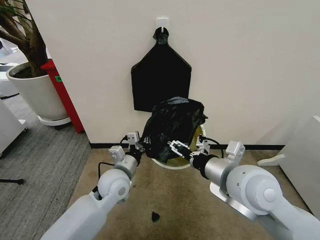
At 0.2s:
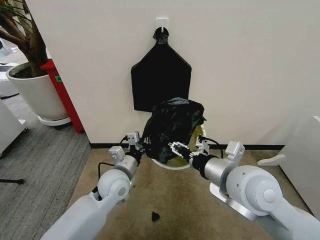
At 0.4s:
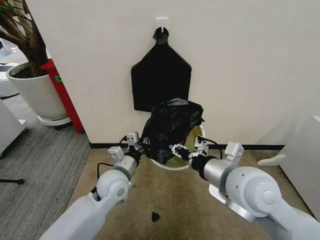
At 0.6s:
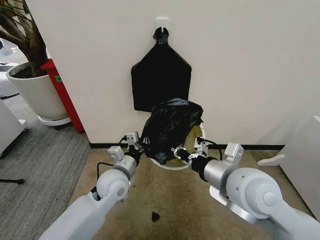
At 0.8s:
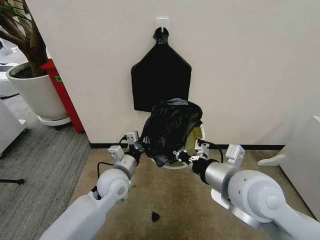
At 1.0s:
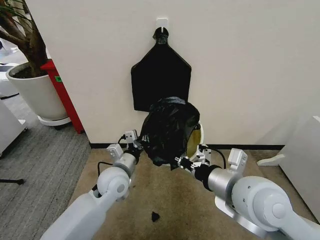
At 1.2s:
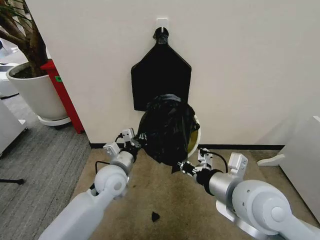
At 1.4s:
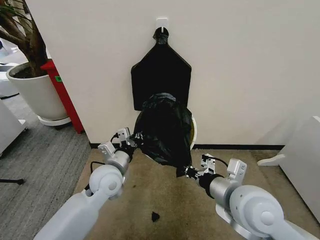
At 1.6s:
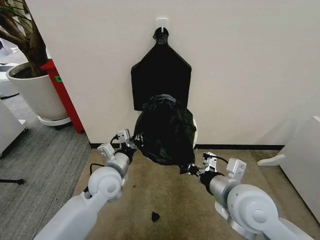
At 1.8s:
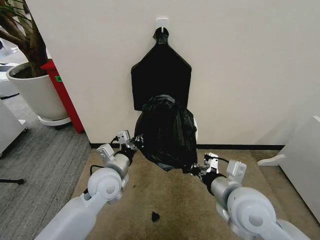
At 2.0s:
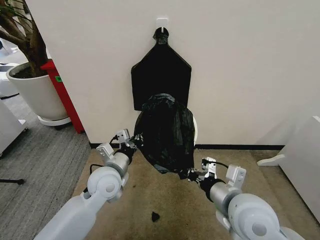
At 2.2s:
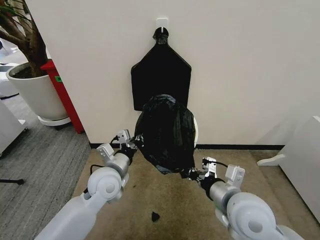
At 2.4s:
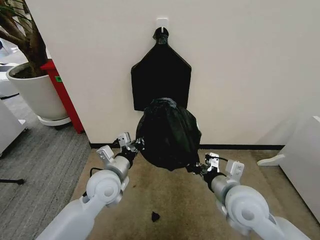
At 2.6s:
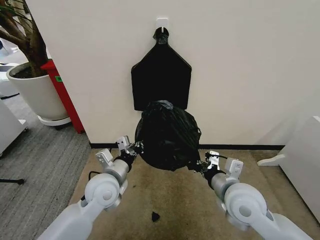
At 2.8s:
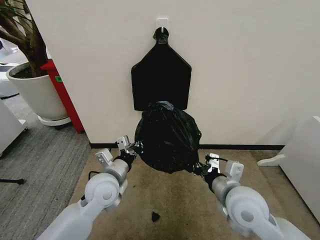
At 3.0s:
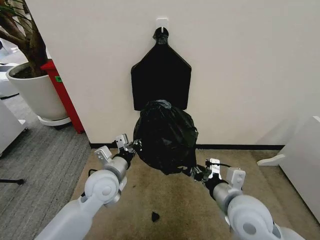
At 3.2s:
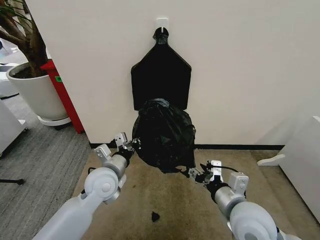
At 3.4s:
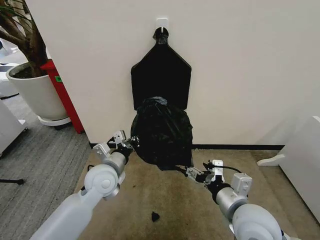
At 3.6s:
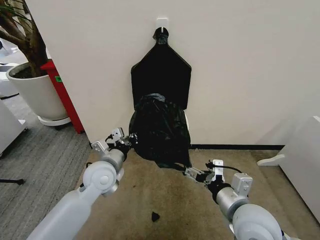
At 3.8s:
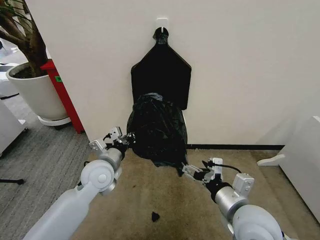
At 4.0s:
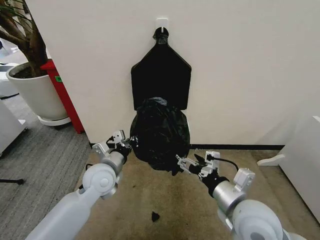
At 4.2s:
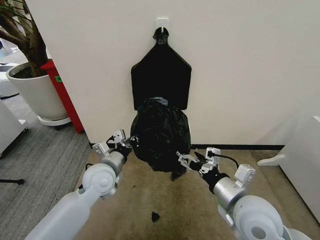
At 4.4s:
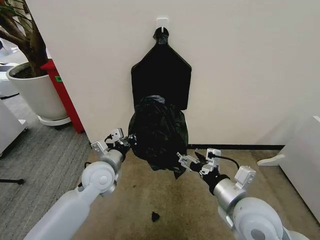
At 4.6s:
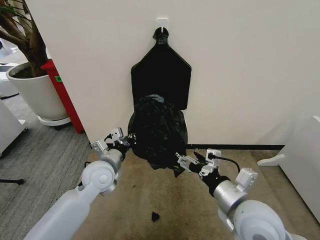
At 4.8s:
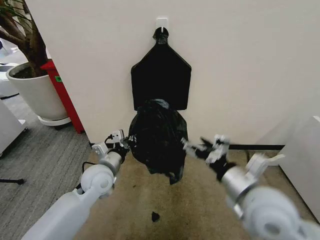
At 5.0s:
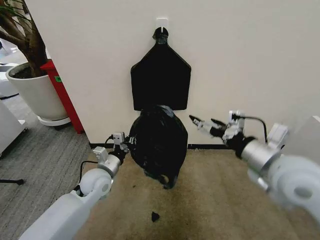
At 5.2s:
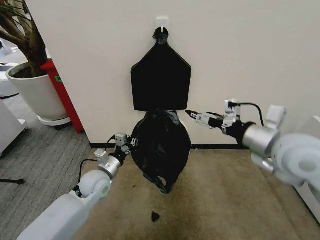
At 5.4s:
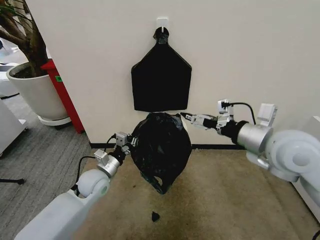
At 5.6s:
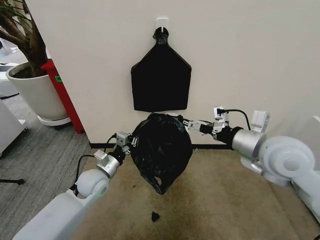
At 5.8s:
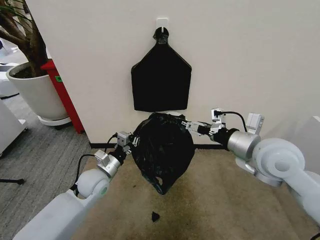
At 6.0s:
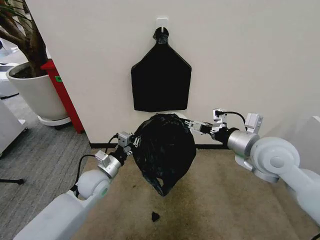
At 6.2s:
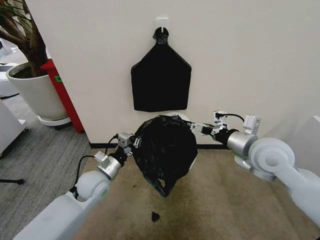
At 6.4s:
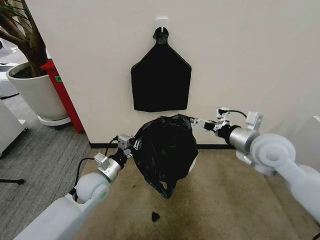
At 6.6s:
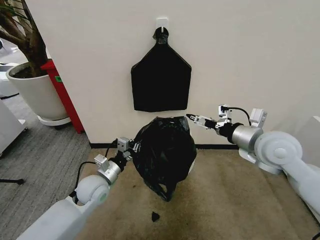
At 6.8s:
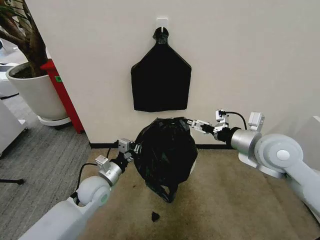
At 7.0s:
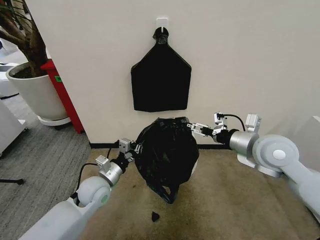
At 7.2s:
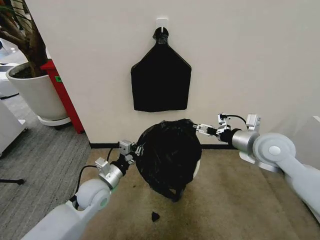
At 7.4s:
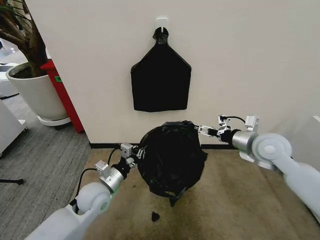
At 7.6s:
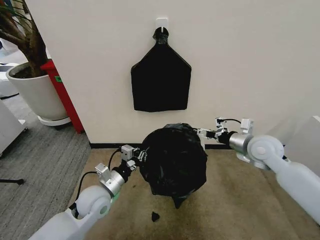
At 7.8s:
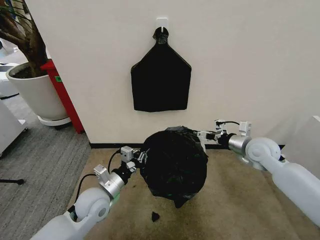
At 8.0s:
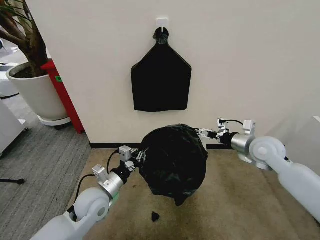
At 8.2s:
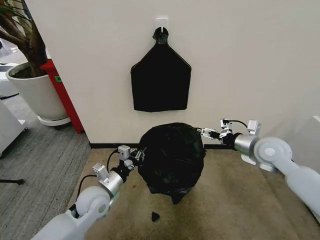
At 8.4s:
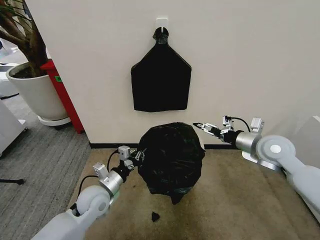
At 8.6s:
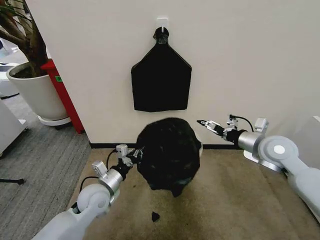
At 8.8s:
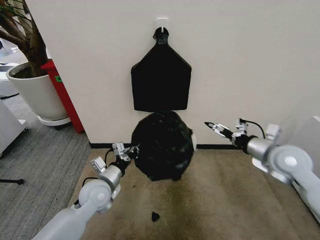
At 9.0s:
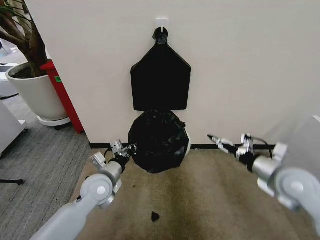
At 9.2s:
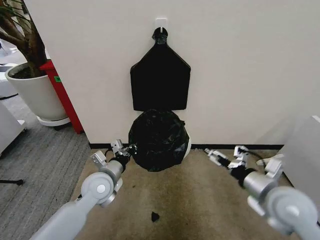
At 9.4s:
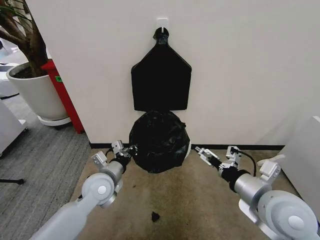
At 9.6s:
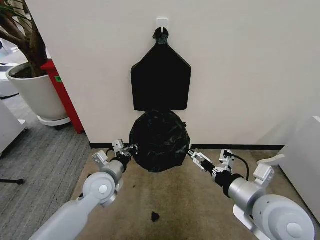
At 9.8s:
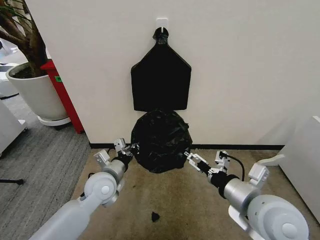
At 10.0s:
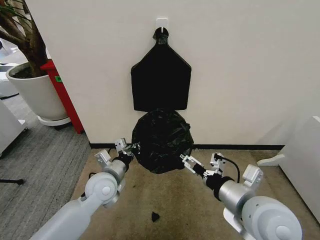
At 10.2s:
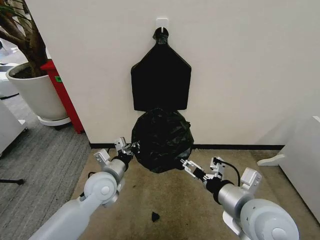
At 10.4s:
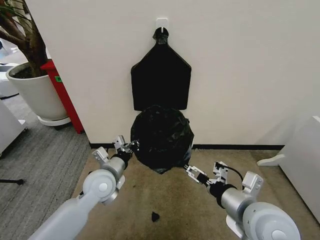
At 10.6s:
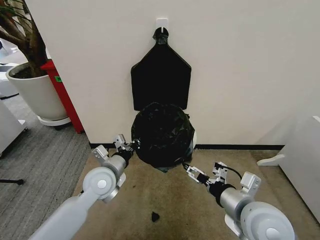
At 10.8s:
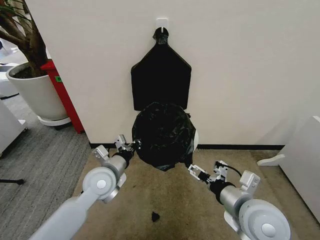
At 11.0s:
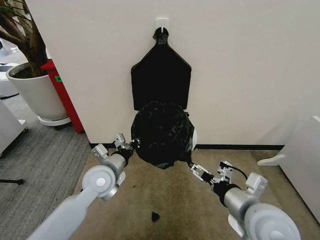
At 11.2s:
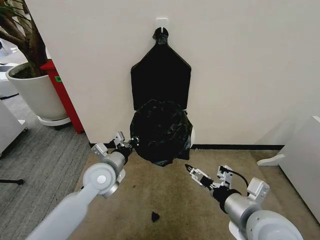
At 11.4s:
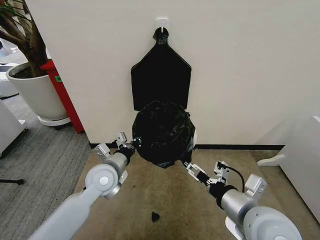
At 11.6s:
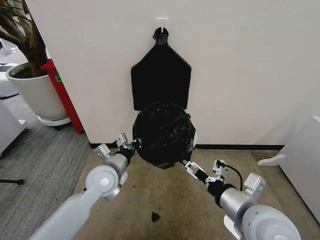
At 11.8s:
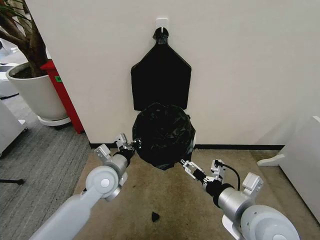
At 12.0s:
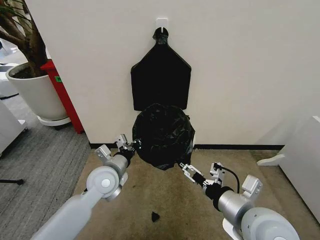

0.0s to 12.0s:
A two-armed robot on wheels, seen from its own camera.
Task of the whole recording: Place the garbage bag over the trash bin.
0.0s to 1.6s: The right gripper goes approximately 5 cm downward, and closes.
1.6s to 3.0s: The right gripper changes place by approximately 5 cm, and opens up.
3.0s to 4.4s: The right gripper opens up.
4.4s to 6.0s: The left gripper moves downward, roughly 5 cm. The right gripper is displaced forward, upward and to the right by some 15 cm.
6.0s to 7.6s: The left gripper moves backward, roughly 5 cm, while the right gripper travels downward, forward and to the right by about 15 cm.
7.6s to 9.0s: The right gripper is displaced backward by about 10 cm.
9.0s to 10.4s: The right gripper moves to the left and backward, roughly 15 cm.
10.4s to 12.0s: The grippers make only small movements.

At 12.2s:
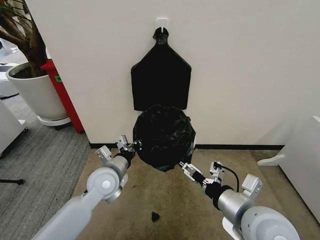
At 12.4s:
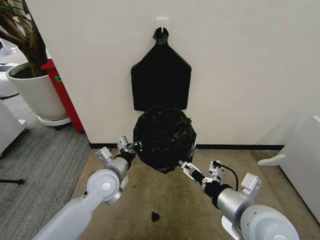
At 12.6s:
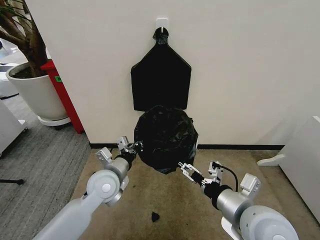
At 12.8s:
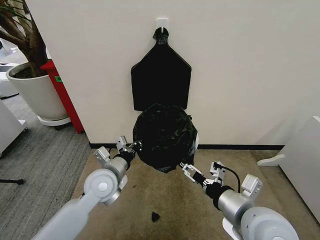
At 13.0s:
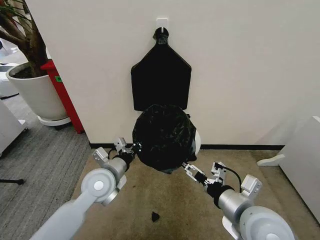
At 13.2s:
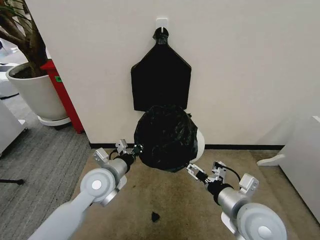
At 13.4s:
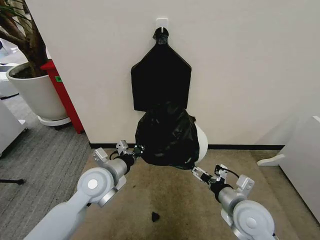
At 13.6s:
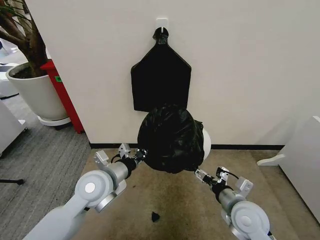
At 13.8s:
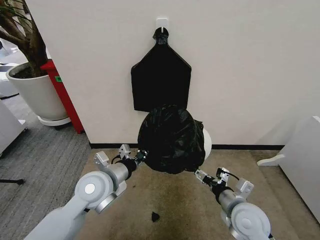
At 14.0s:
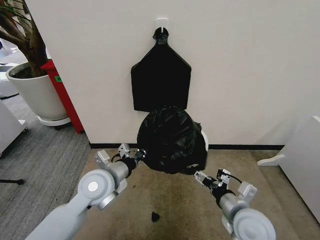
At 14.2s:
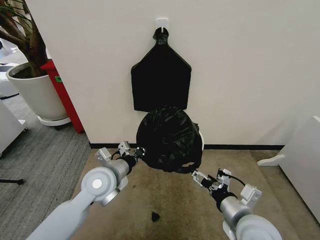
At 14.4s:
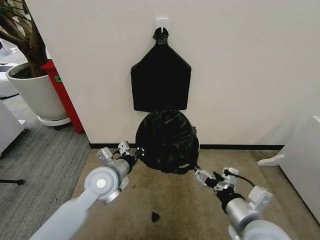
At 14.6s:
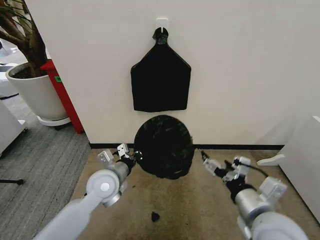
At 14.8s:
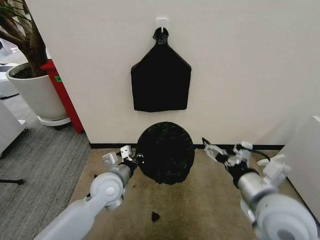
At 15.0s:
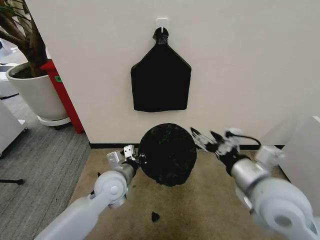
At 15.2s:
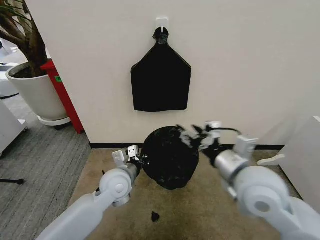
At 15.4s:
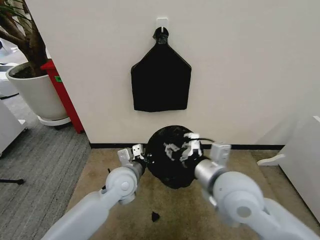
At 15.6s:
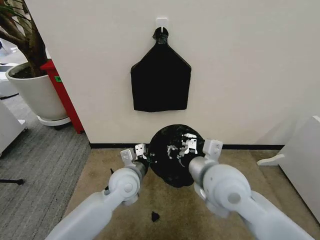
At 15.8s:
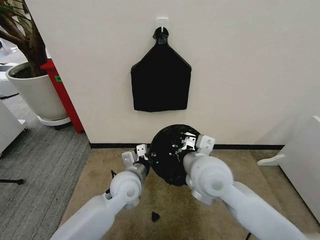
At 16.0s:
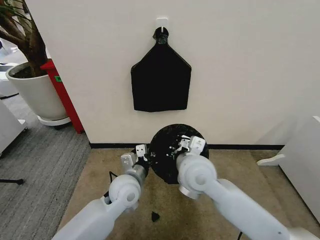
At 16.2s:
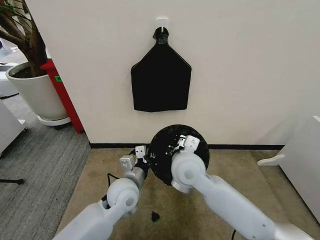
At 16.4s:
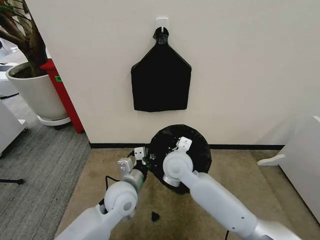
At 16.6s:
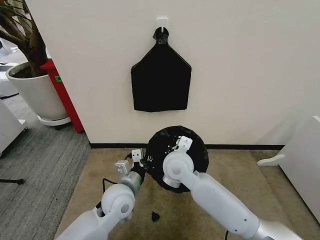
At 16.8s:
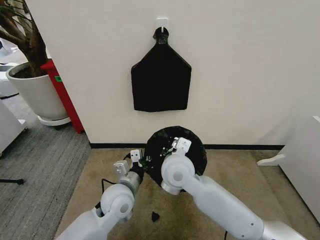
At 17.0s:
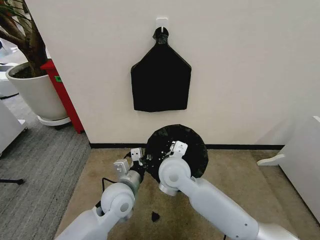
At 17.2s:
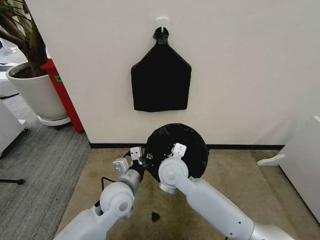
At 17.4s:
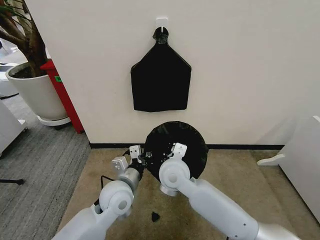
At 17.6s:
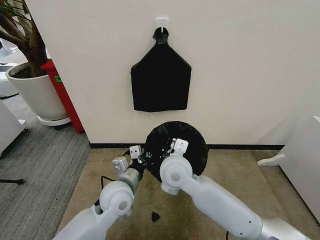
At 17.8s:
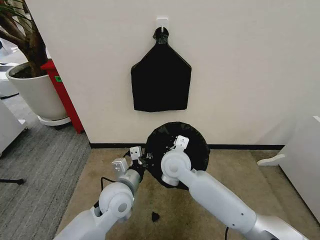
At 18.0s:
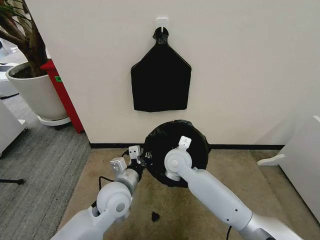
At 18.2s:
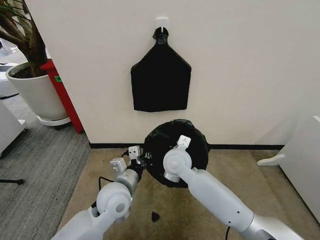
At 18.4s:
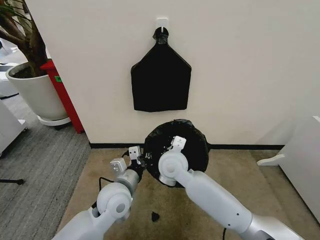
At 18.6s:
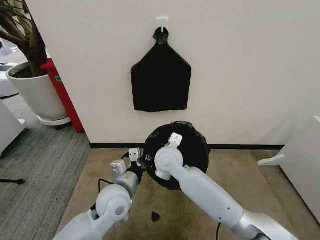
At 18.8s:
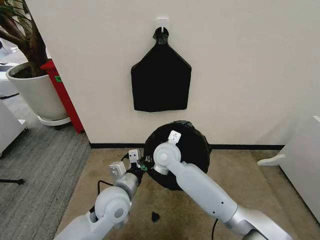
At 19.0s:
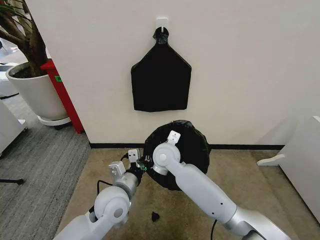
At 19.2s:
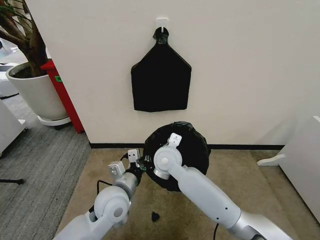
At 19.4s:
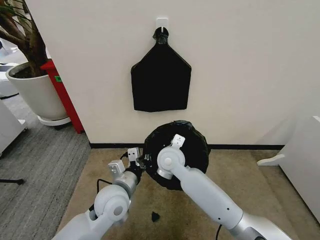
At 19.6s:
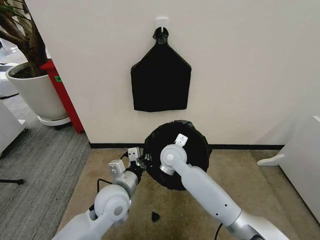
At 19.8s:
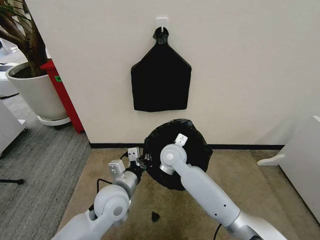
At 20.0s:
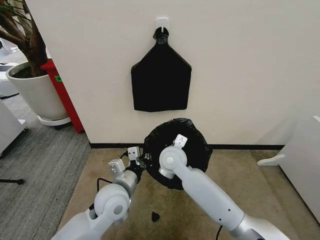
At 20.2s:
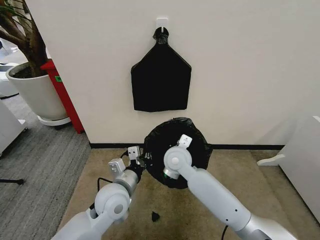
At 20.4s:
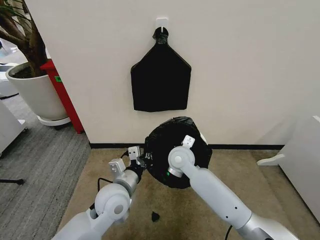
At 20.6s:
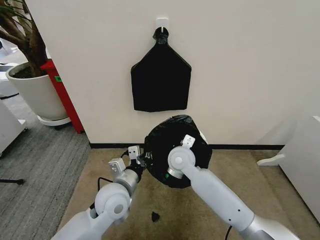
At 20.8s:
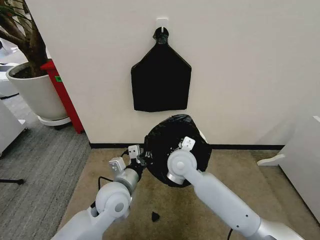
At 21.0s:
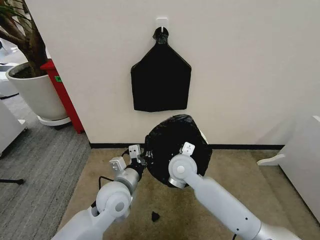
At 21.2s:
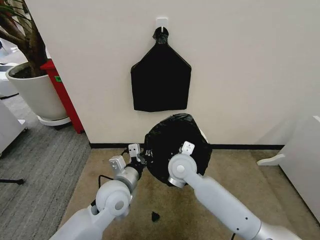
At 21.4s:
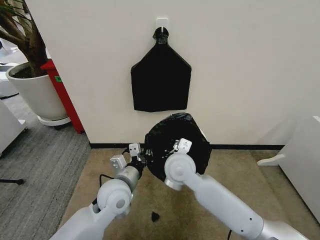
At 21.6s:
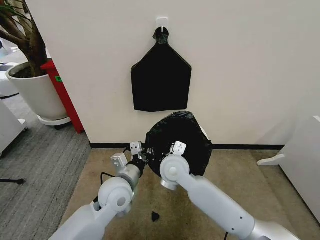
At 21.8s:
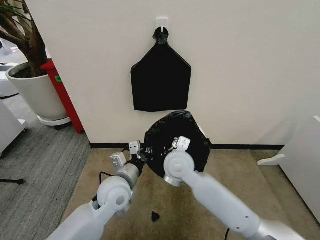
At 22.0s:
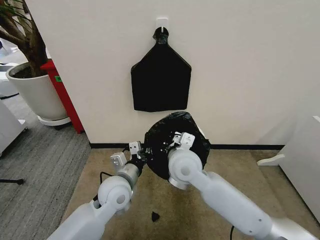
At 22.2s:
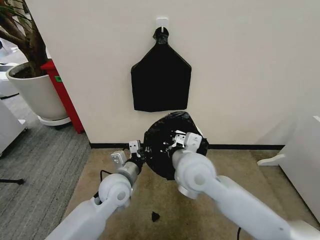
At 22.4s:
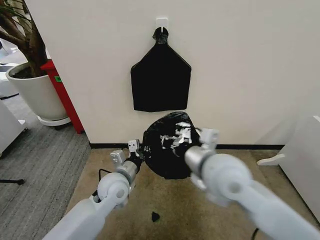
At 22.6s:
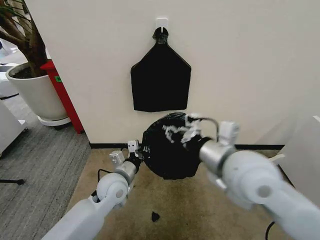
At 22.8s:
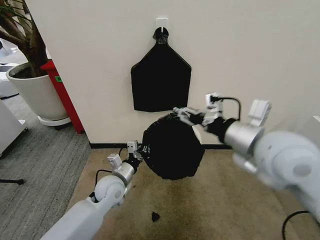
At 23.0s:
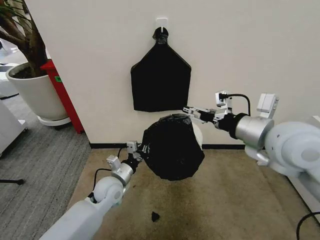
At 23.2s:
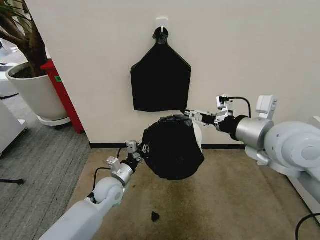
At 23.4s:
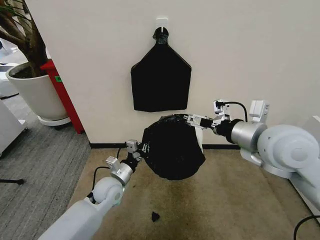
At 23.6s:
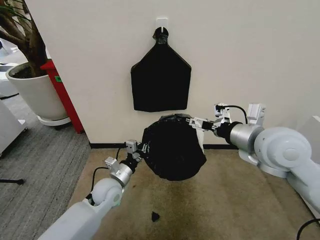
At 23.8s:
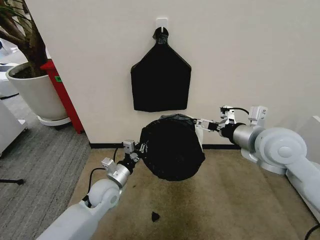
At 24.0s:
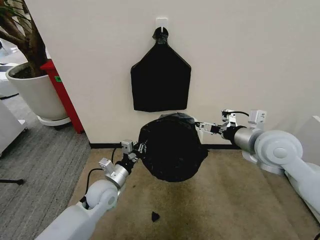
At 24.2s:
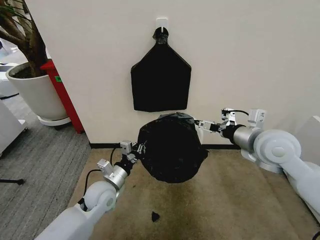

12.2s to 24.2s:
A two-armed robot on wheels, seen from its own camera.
Task of the whole recording: Place the garbage bag over the trash bin.
12.2s to 13.8s: The left gripper shifts by some 5 cm. The right gripper travels downward by about 10 cm.
13.8s to 15.2s: The right gripper shifts roughly 15 cm upward, and closes; the left gripper ends up approximately 5 cm from where it was.
15.2s to 16.6s: The right gripper is displaced to the left, forward and downward by about 20 cm, and closes its fingers.
16.6s to 18.2s: The grippers move only a little.
18.2s to 19.8s: The grippers move only a little.
19.8s to 21.2s: The right gripper moves backward, approximately 5 cm.
21.2s to 22.6s: The right gripper heads upward, backward and to the right, covering some 25 cm. Meanwhile the left gripper moves approximately 5 cm.
22.6s to 24.2s: The right gripper goes some 15 cm to the right and forward, and opens its fingers. Meanwhile the left gripper changes place by roughly 5 cm.
